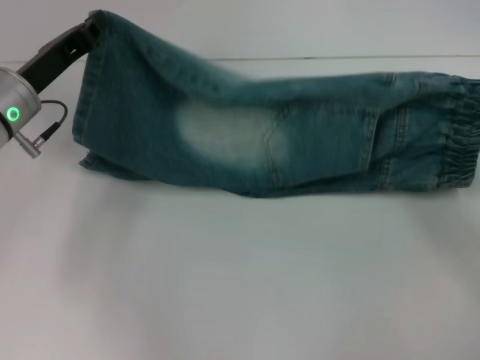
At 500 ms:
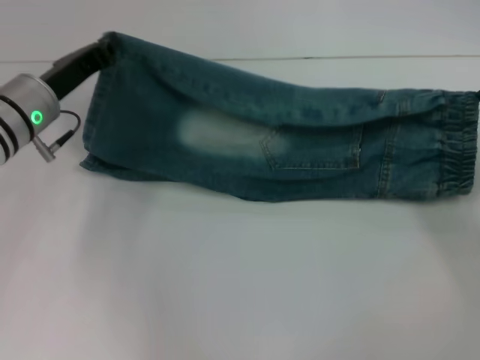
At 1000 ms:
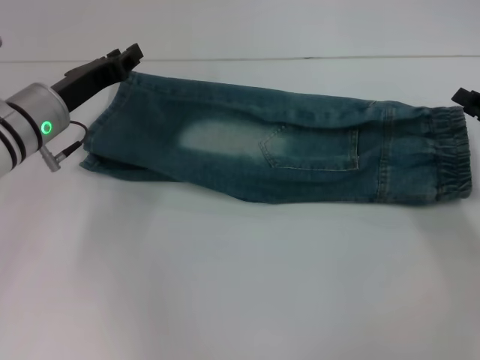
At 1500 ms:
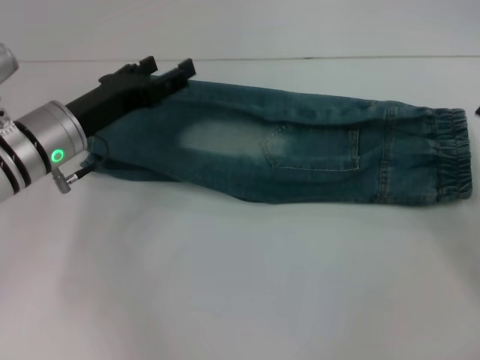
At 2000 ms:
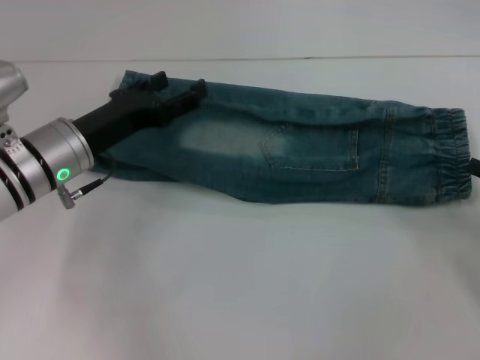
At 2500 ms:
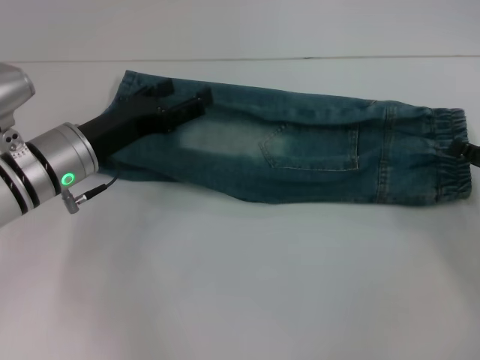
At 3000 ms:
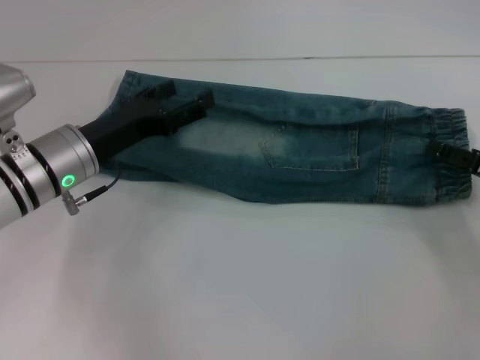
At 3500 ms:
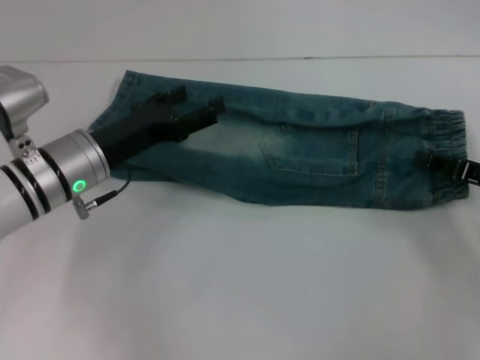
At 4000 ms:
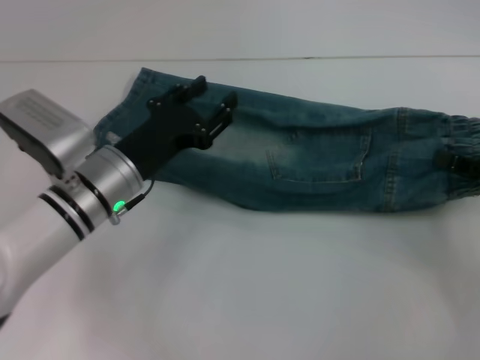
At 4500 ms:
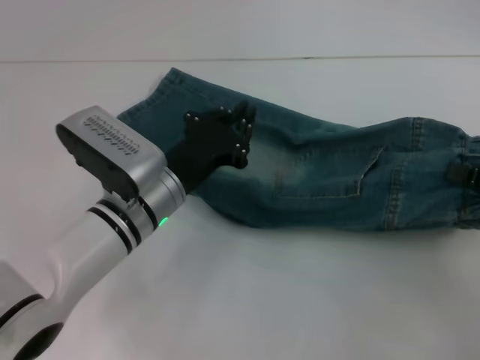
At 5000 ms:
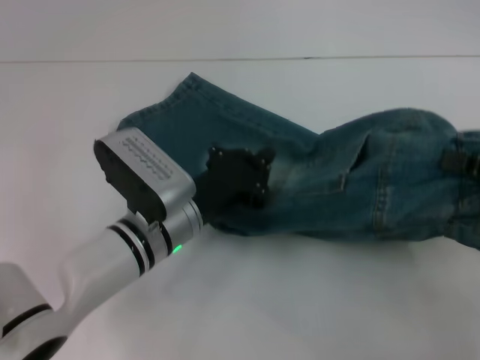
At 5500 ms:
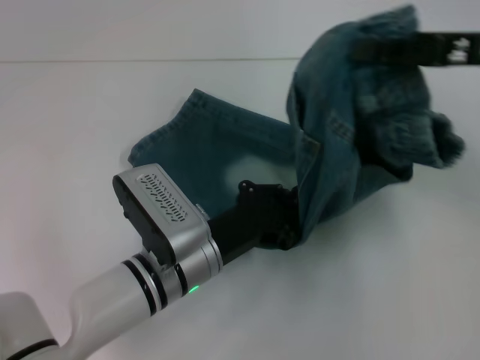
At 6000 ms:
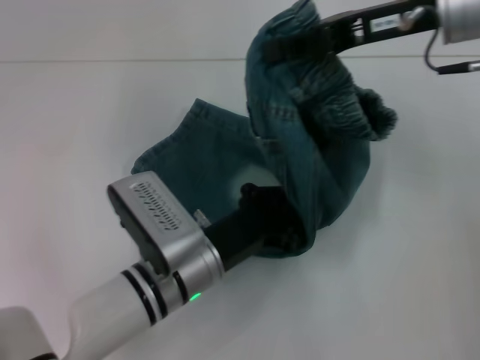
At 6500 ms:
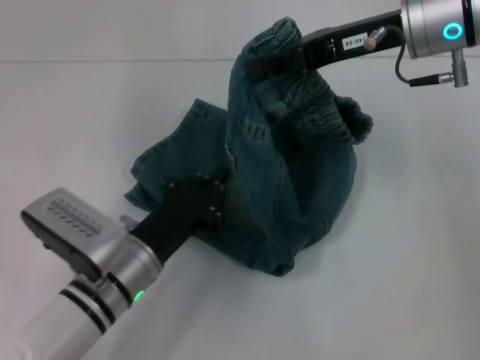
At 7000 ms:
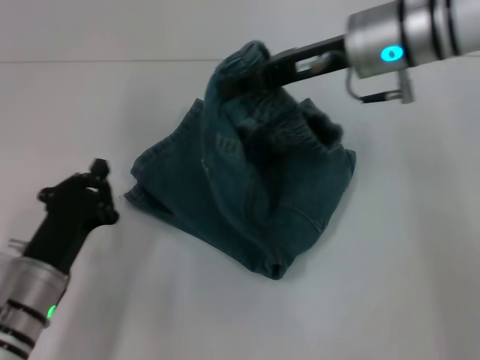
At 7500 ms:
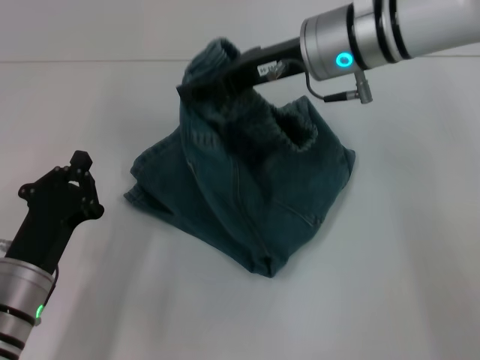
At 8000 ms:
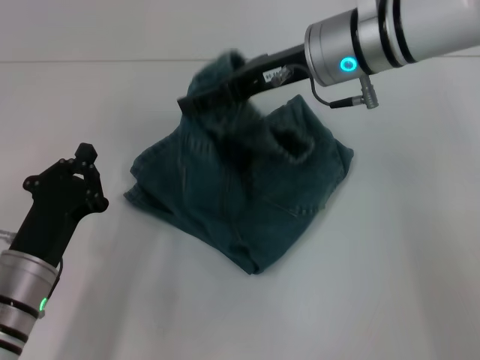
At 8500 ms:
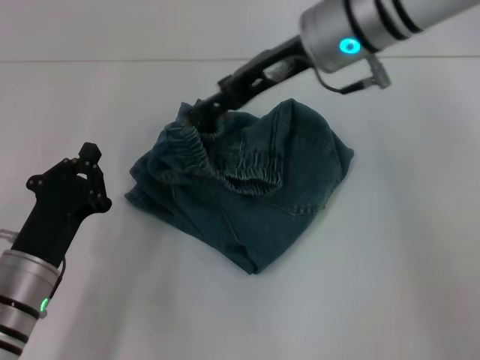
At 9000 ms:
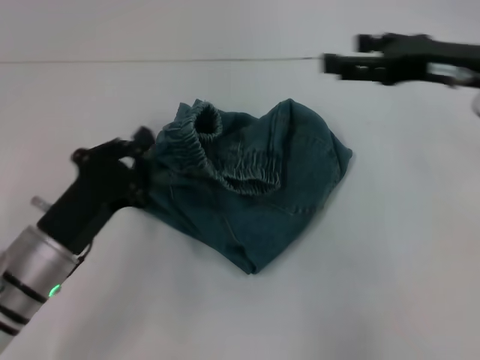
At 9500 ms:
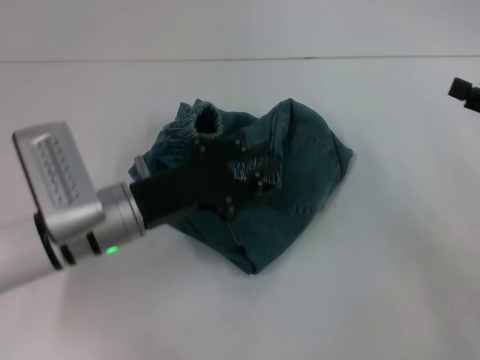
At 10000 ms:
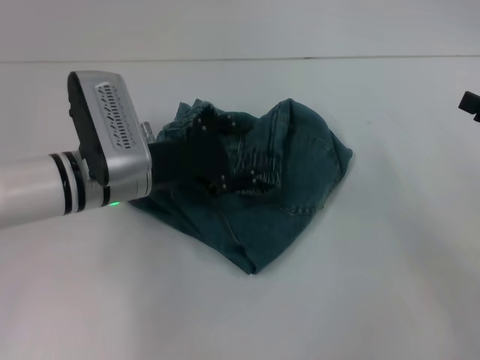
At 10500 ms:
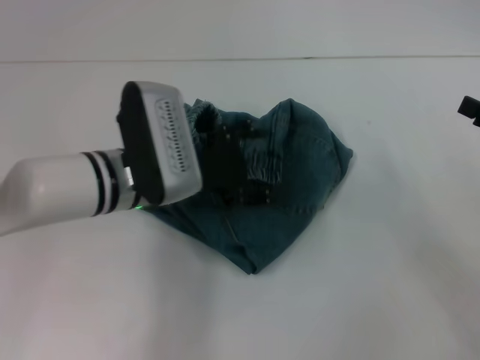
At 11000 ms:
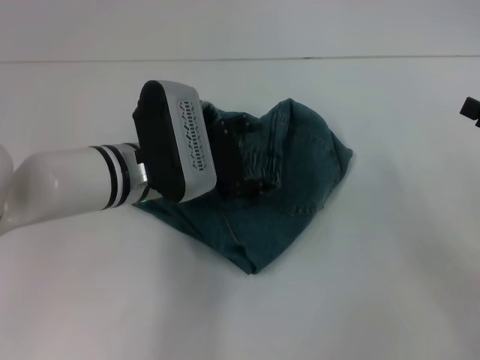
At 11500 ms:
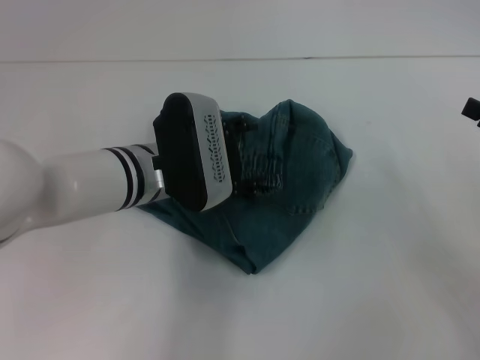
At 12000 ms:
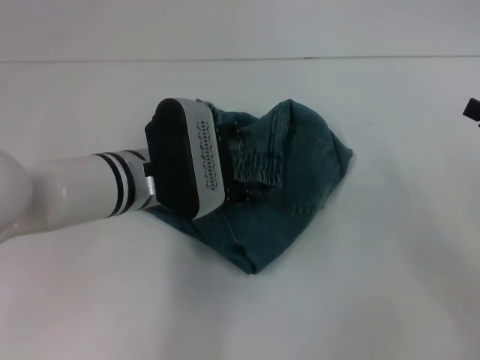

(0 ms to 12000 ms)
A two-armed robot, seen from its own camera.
Step, 1500 ms - 3500 ms: Grab the waistband with your right hand.
Step, 4000 ms - 5500 ms: Press the middle of the pants with your left hand.
Step, 6000 ms - 8000 ms: Fold to the left with your right hand.
0 ms - 2000 ms: The right gripper travels backward by roughly 5 cm, and opens. Meanwhile the left gripper moves approximately 5 cm, and opens.
2000 ms - 4000 ms: The left gripper ends up about 5 cm from where it was. Meanwhile the right gripper closes its fingers.
4000 ms - 6000 ms: The right gripper shifts roughly 25 cm to the left, upward and forward, while the left gripper moves to the right and backward, roughly 10 cm, and closes.
6000 ms - 8000 ms: The right gripper moves to the left, approximately 10 cm, and opens its fingers. The left gripper heads to the left, covering roughly 15 cm.
8000 ms - 10000 ms: The right gripper is displaced to the right and backward by about 30 cm. Meanwhile the left gripper goes roughly 15 cm forward, upward and to the right, and opens up.

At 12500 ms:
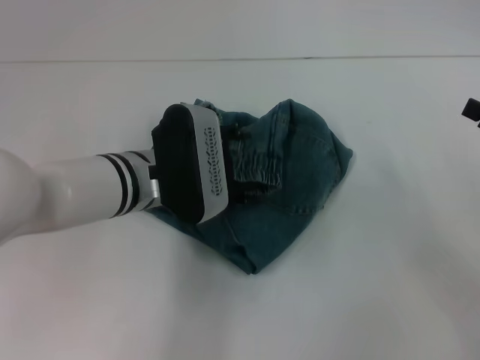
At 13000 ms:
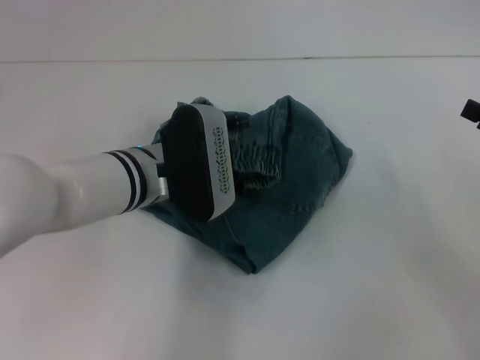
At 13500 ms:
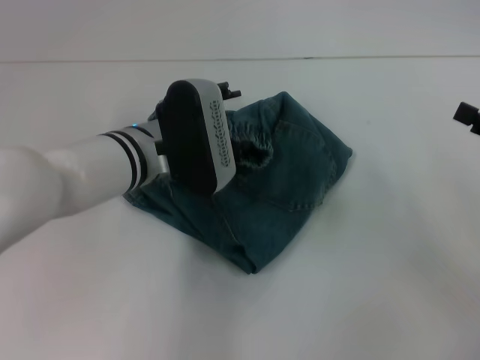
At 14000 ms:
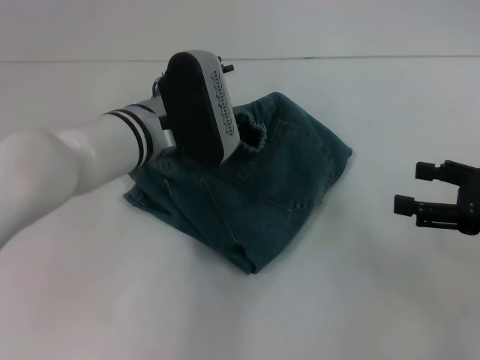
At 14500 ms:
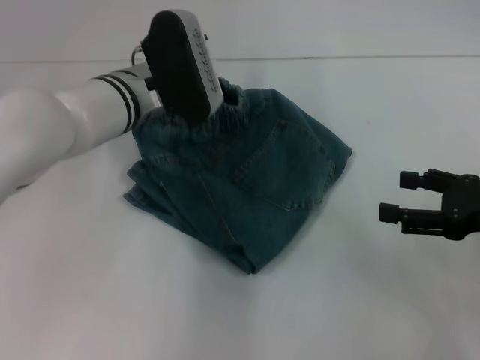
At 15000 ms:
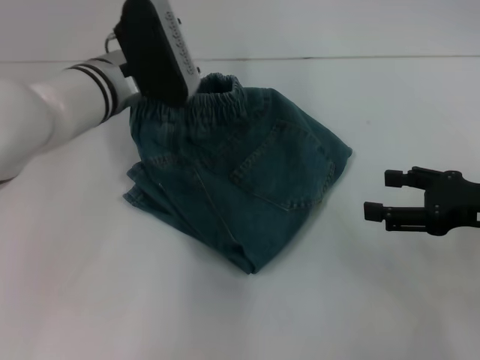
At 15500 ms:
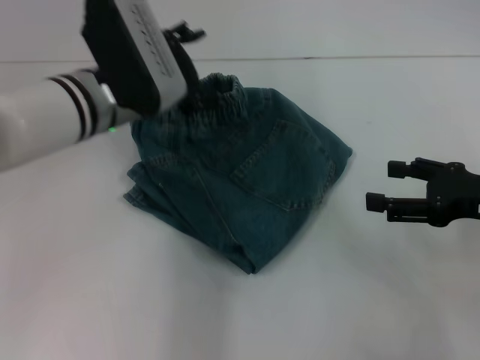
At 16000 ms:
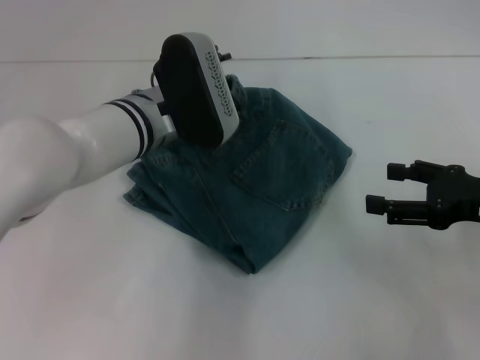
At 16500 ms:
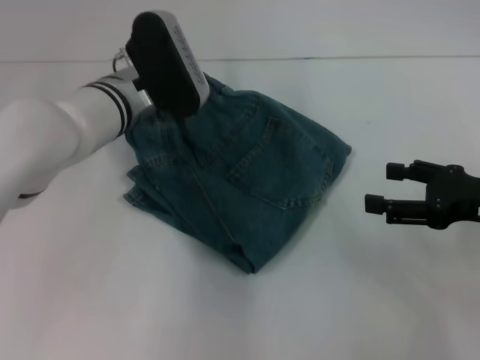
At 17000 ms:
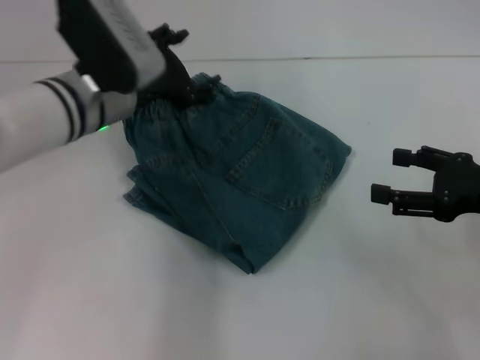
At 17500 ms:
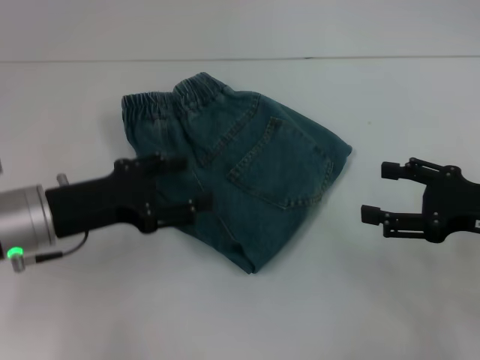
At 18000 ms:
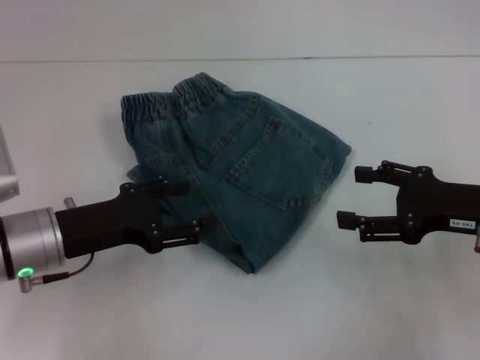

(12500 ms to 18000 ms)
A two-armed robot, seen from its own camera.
Step, 12500 ms - 16000 ms: Adjust the pants with your left hand.
12500 ms - 14500 ms: The right gripper goes some 5 cm to the left; the left gripper is displaced forward by approximately 5 cm.
14500 ms - 16000 ms: The grippers make only small movements.
16000 ms - 18000 ms: The left gripper is displaced to the left and backward by roughly 15 cm.
